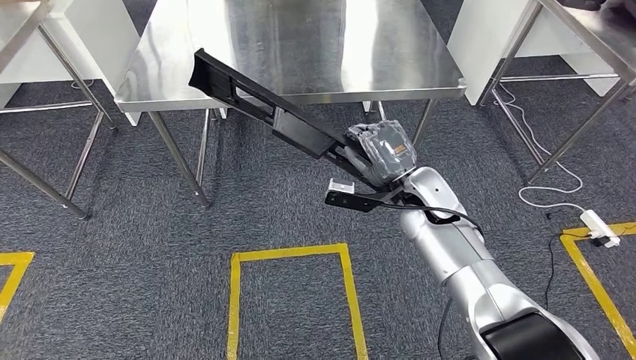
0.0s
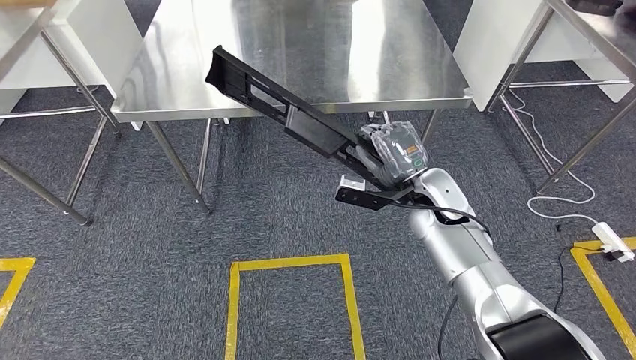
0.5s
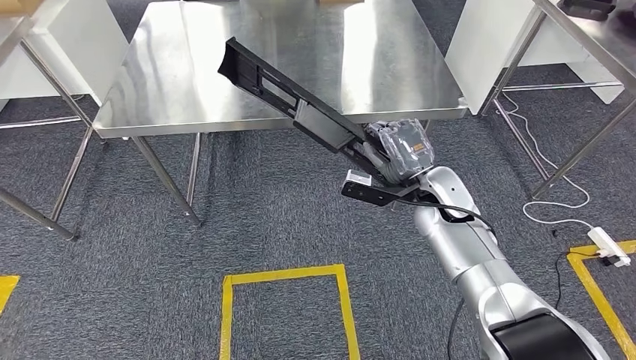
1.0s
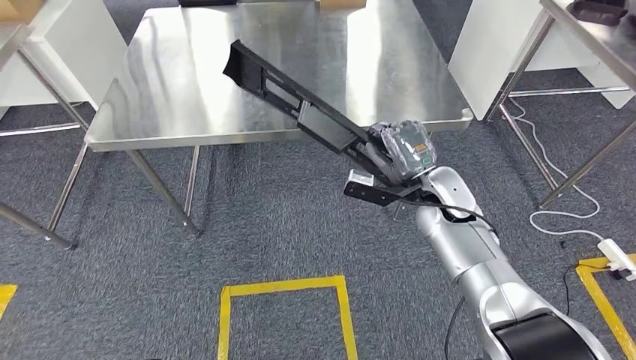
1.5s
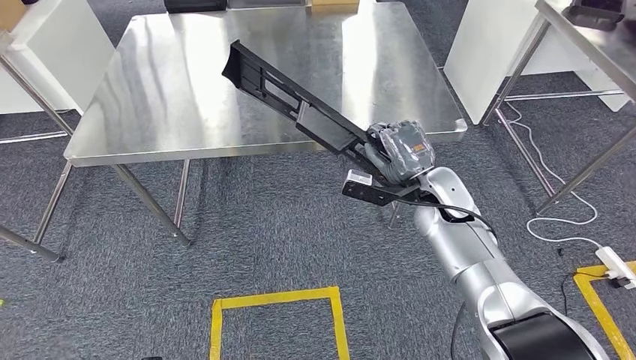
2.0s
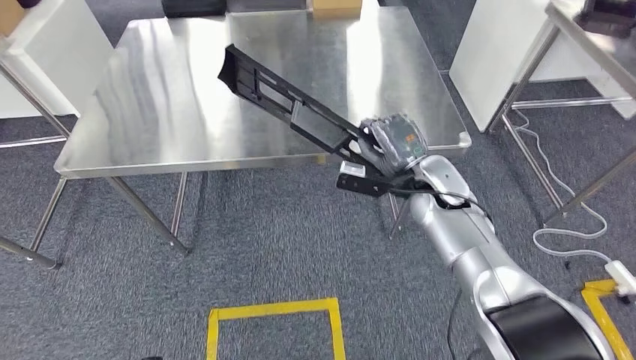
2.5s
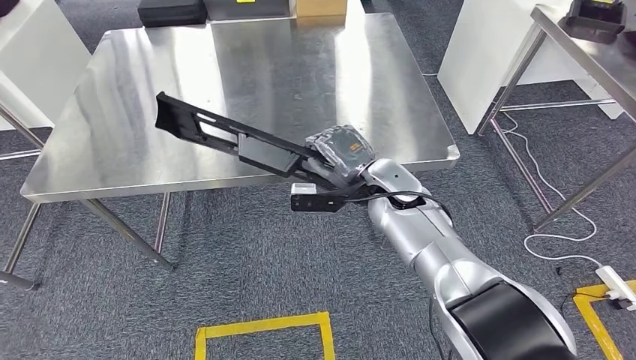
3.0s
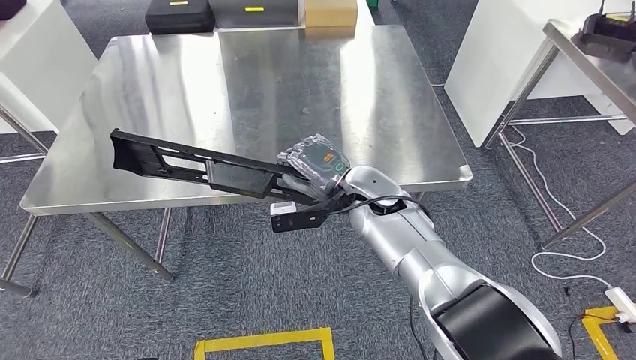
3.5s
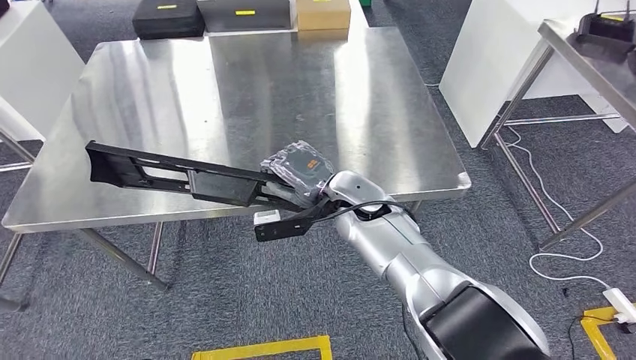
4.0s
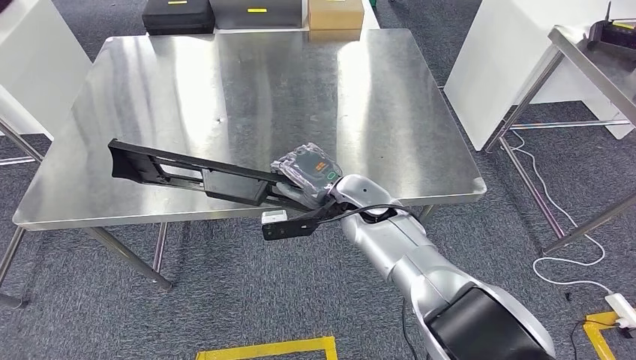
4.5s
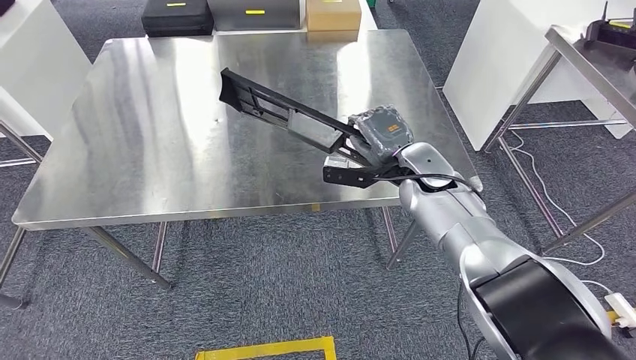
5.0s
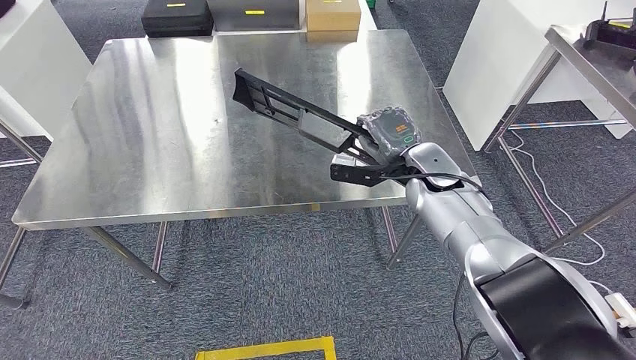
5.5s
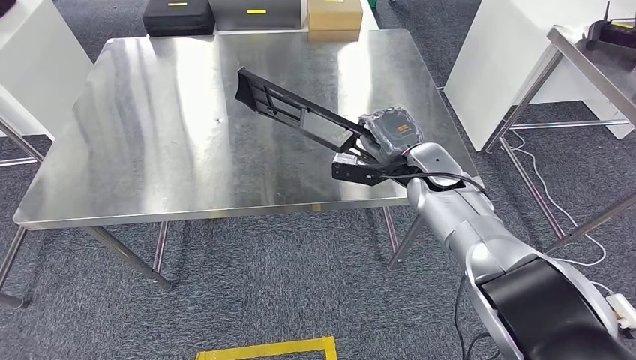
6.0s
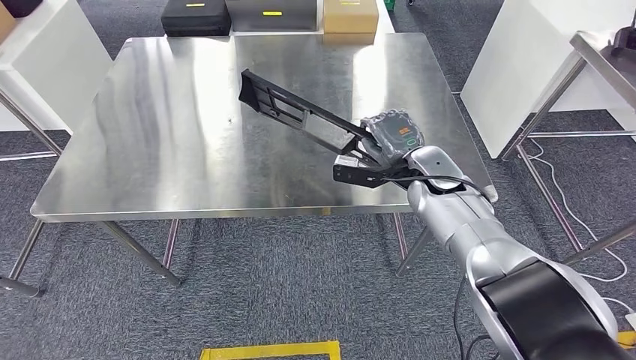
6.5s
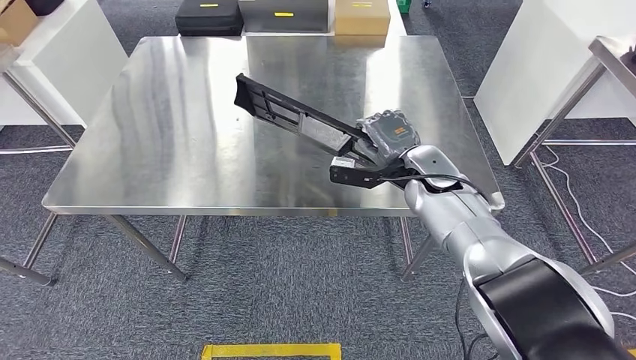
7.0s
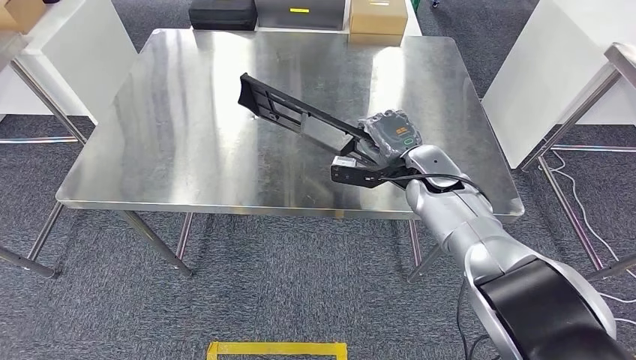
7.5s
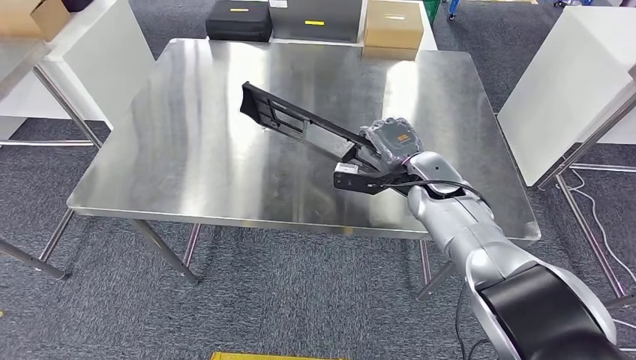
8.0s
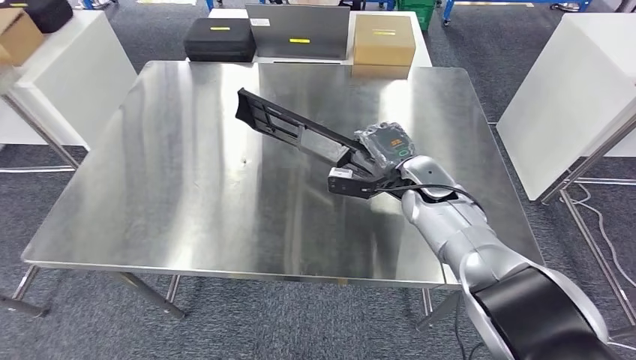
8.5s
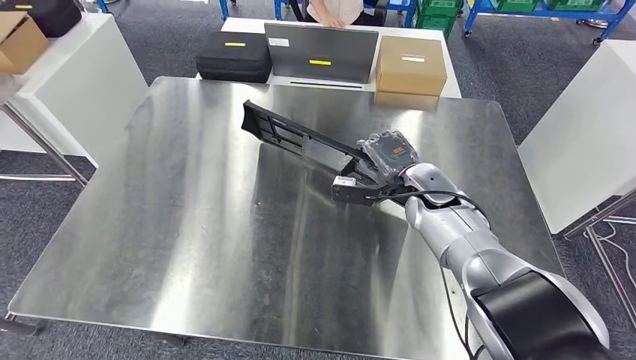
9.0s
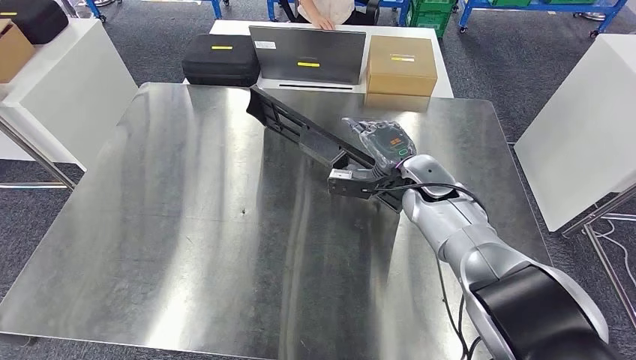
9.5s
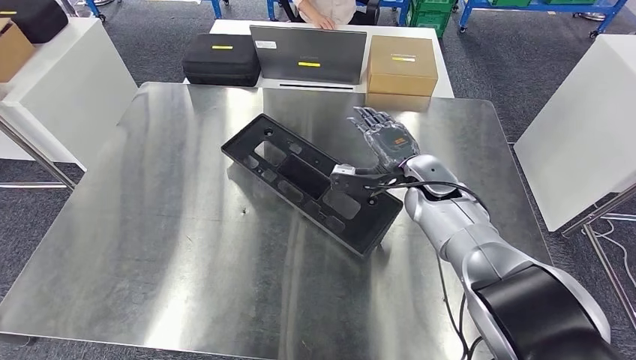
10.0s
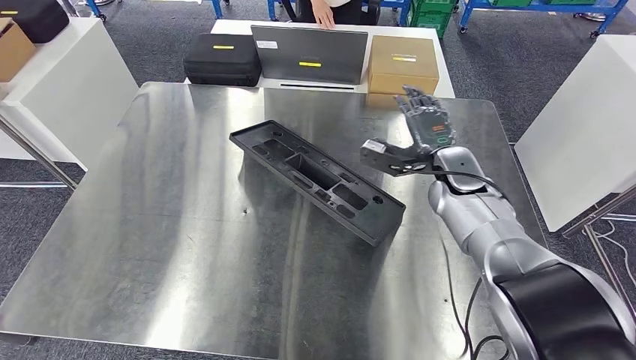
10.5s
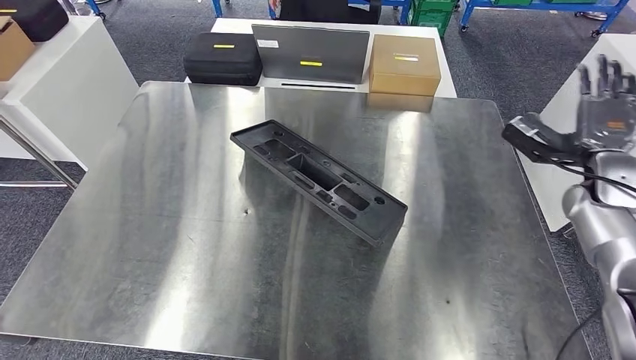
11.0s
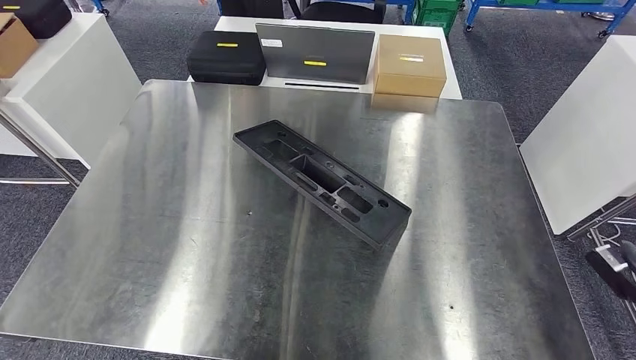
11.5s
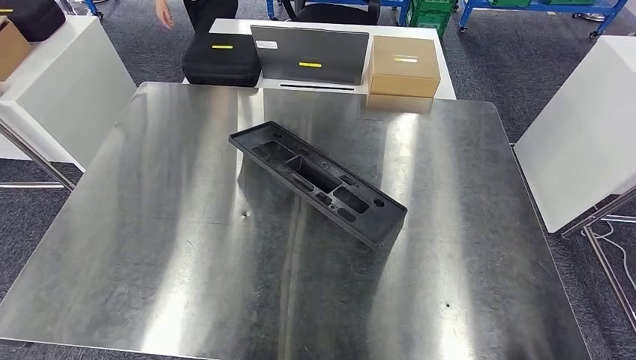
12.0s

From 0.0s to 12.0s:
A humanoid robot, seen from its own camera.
Step, from 0.0s to 10.5s: Insert the large material into the corresponding slot on the workbench.

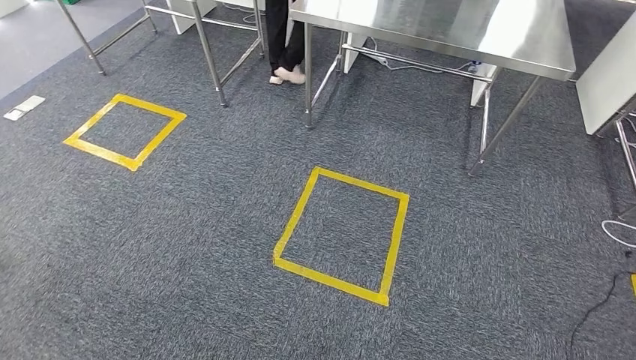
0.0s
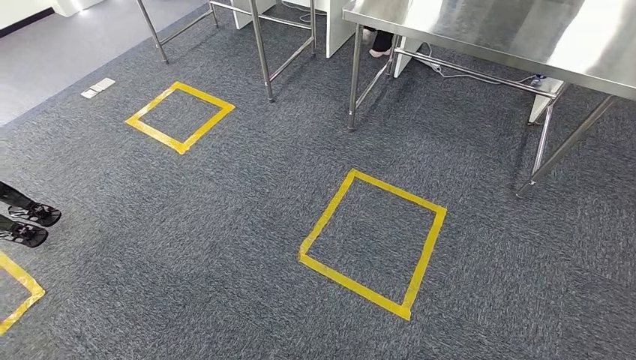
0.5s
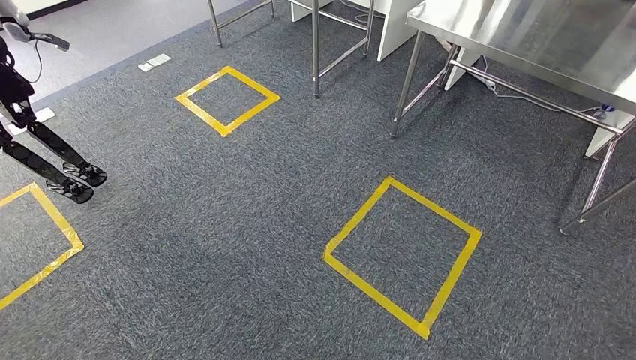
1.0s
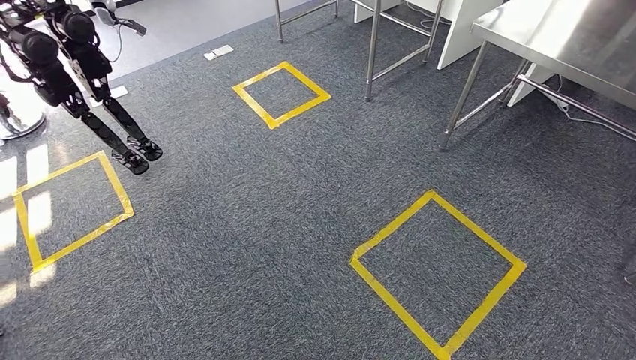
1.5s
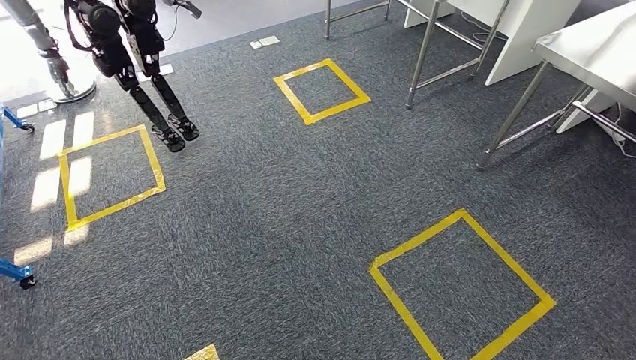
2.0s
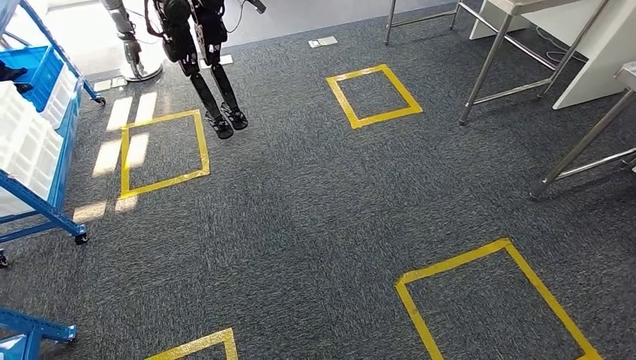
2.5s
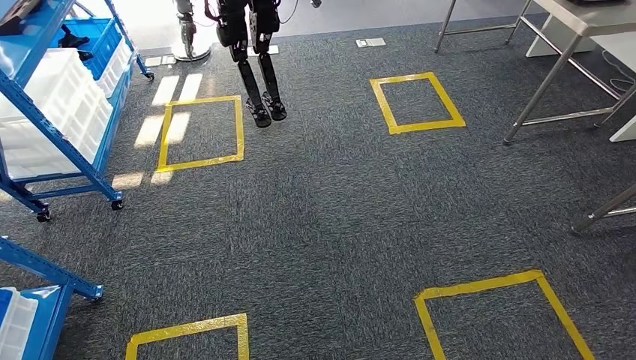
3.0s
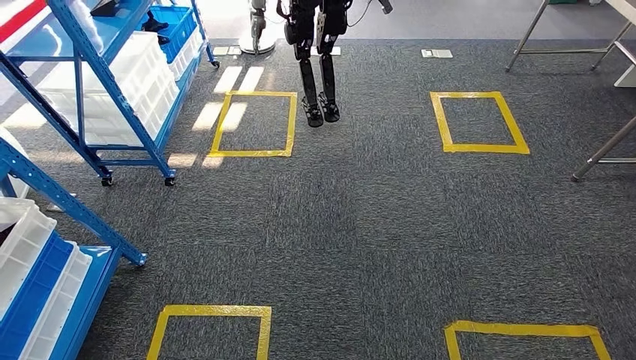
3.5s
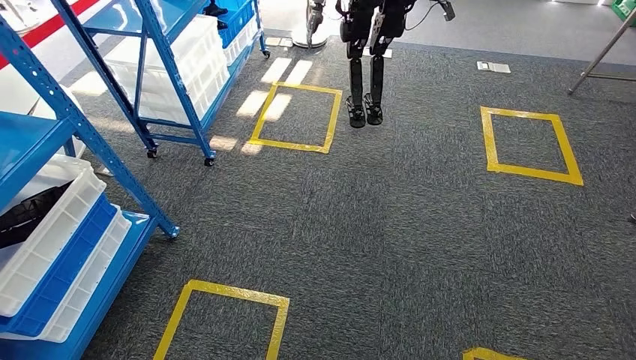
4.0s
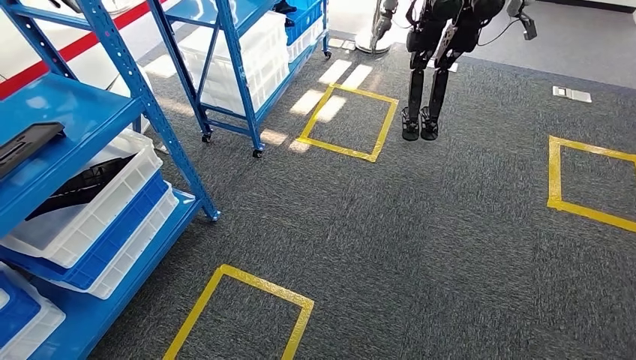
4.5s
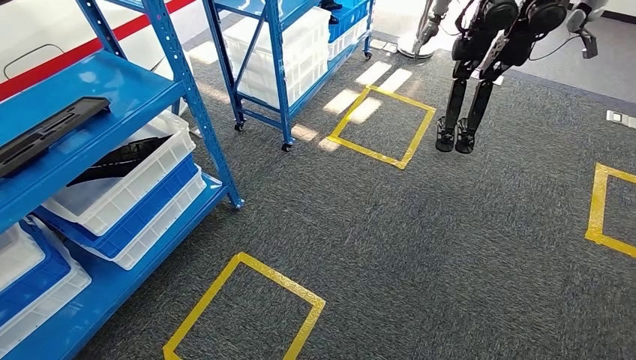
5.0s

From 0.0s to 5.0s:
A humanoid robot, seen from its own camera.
Step, from 0.0s to 5.0s: Move to the initial position of the shelf.
